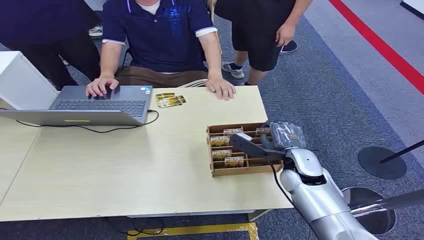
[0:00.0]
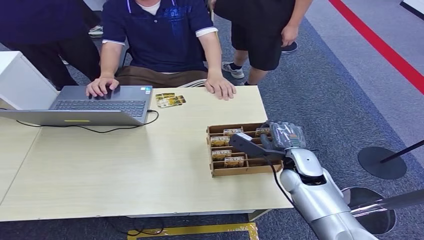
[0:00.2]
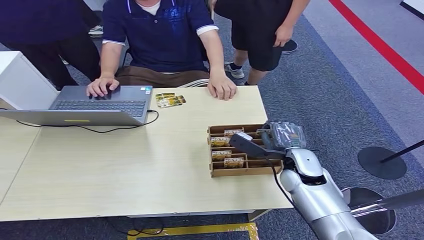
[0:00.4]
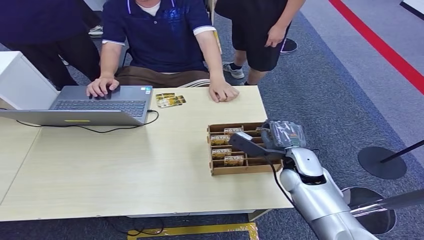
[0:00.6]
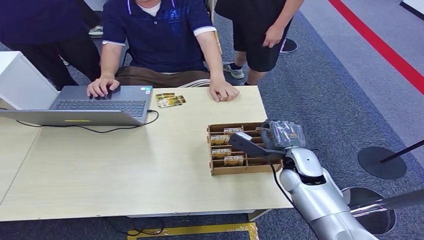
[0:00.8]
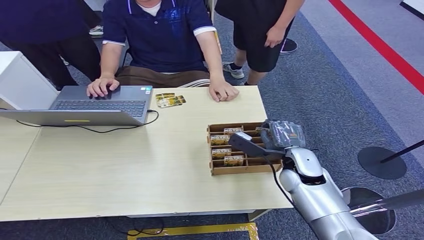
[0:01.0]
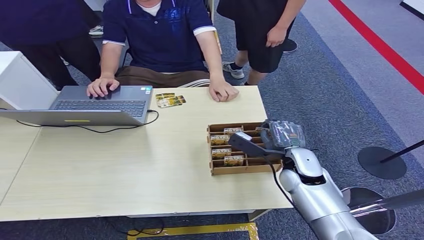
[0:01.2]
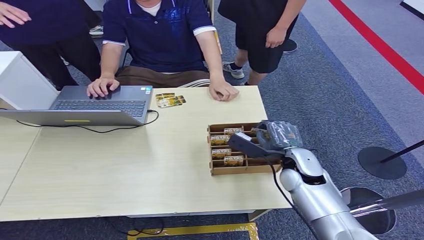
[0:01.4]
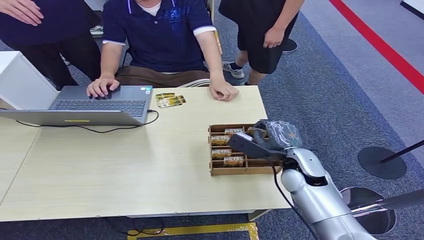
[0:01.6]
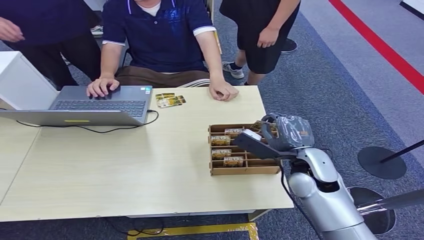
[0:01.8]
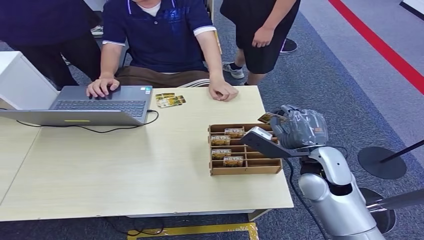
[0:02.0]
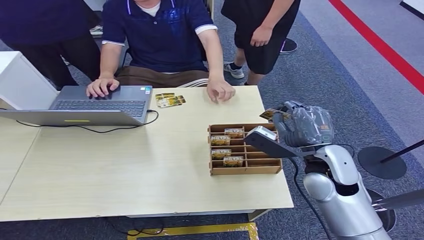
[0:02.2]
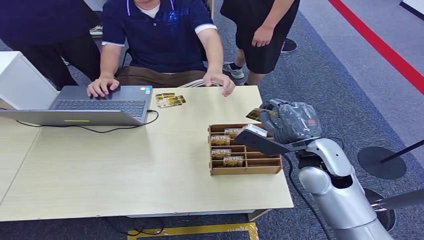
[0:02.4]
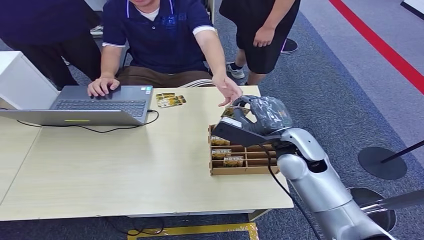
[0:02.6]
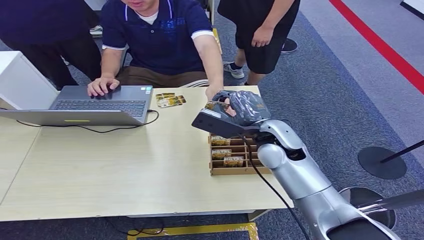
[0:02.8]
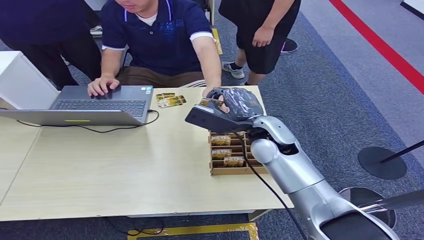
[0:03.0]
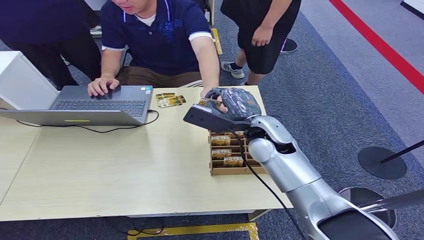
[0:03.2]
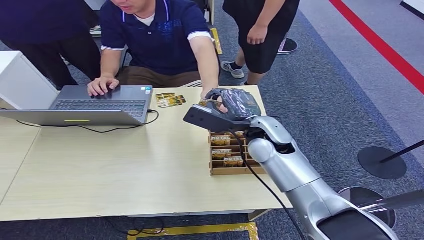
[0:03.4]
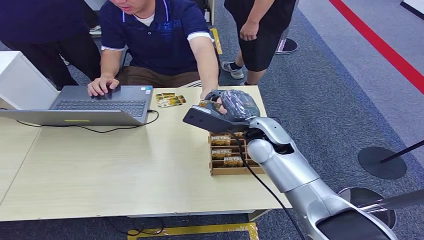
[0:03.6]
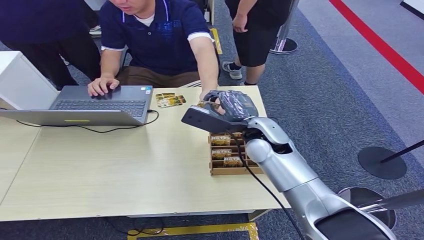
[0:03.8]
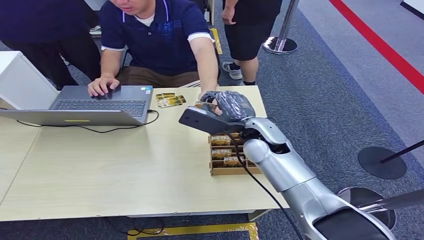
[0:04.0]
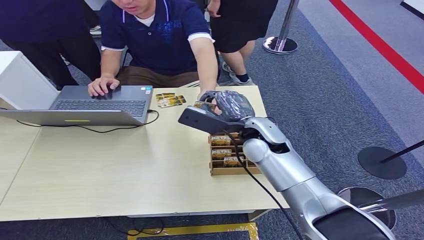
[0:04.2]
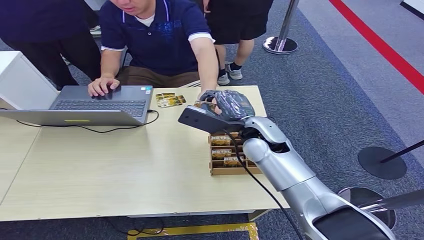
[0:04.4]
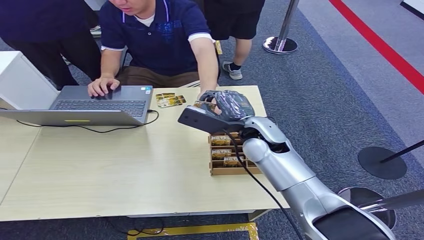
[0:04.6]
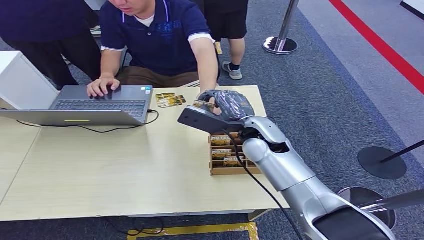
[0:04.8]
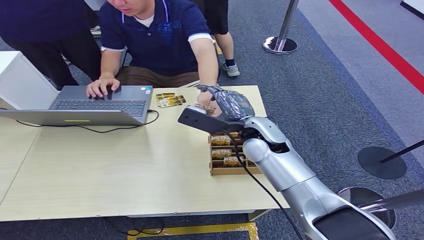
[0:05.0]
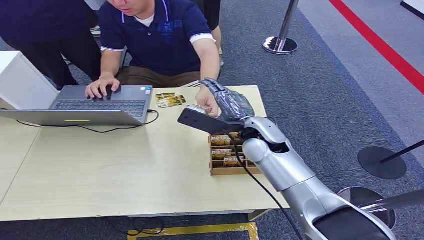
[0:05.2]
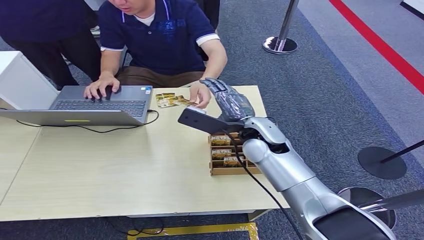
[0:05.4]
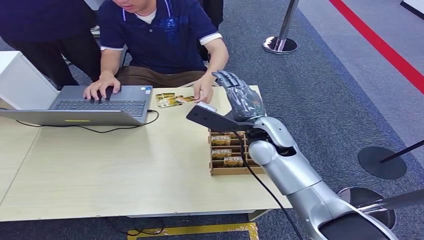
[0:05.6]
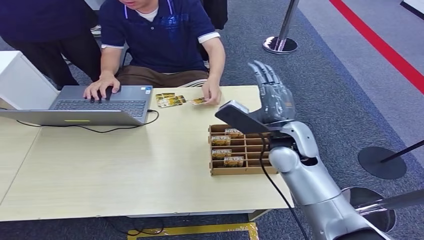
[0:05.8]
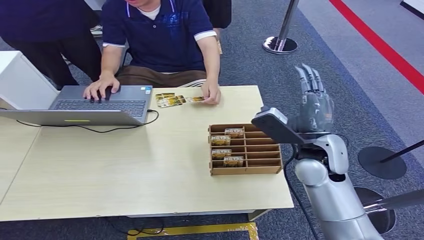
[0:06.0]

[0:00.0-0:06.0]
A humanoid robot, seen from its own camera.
Step, 0:00.0 to 0:02.2: Pick up the room card from the card holder.
Step, 0:02.4 to 0:06.0: Hand the room card to the target.
0:01.6 to 0:03.0: The right hand shifts about 15 cm upward, to the left and forward.
0:03.0 to 0:04.4: There are only small adjustments of the hands.
0:04.4 to 0:06.0: The right hand moves to the right and backward, approximately 10 cm.
